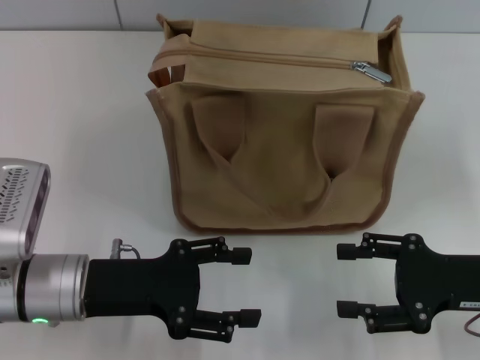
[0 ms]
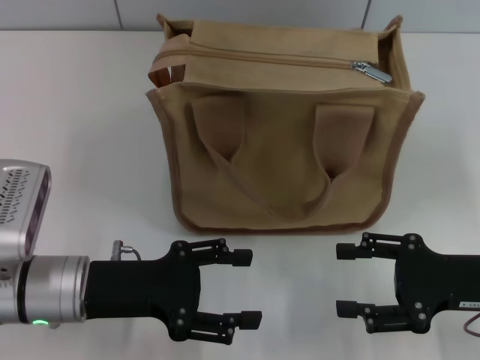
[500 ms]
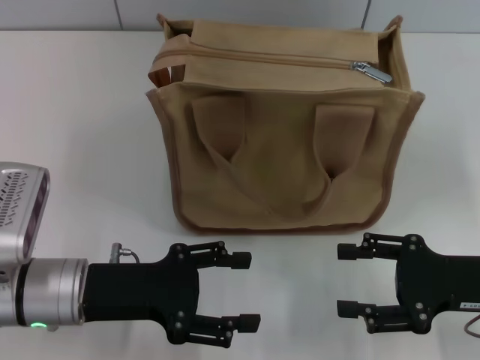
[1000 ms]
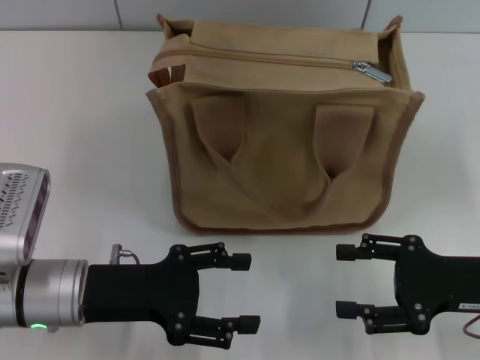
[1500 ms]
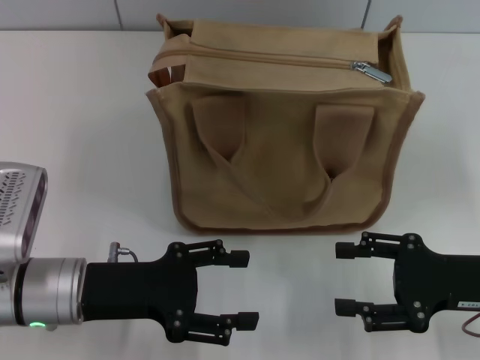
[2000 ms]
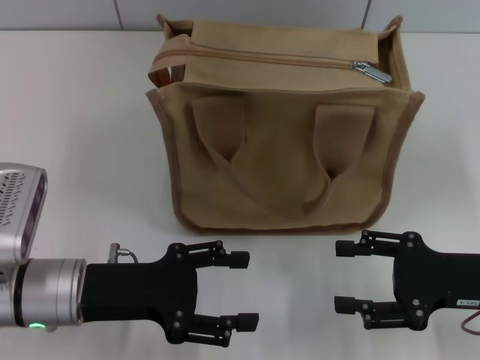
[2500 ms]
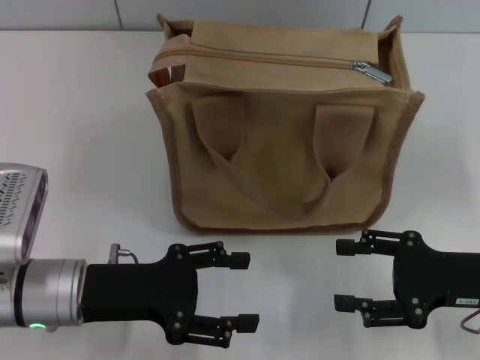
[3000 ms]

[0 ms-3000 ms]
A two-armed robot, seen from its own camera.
0 ms to 3000 ms: The two grippers keep their place.
